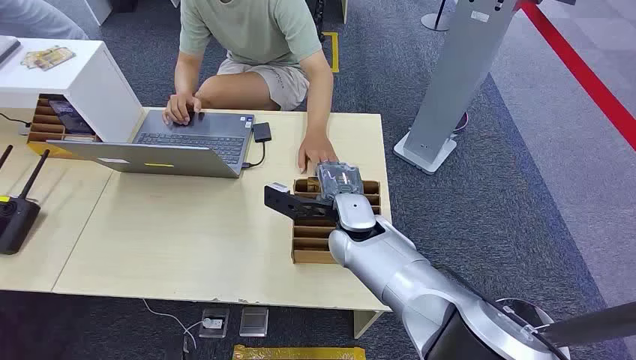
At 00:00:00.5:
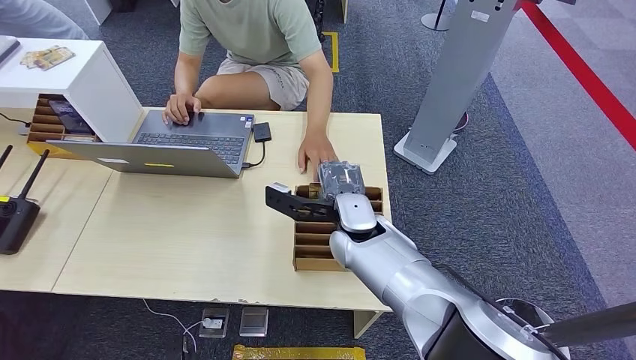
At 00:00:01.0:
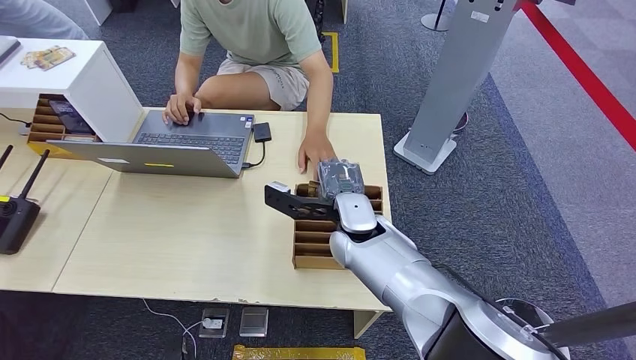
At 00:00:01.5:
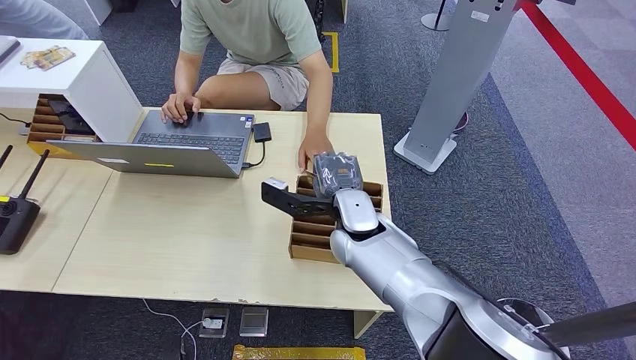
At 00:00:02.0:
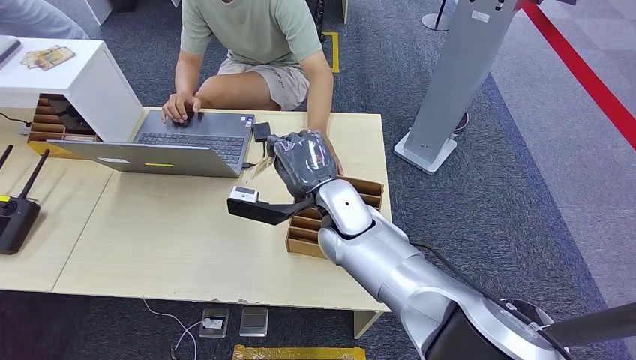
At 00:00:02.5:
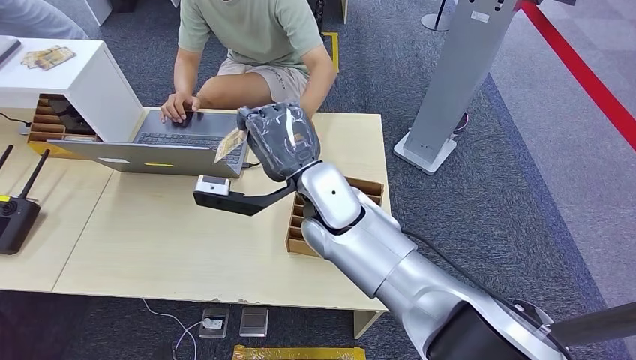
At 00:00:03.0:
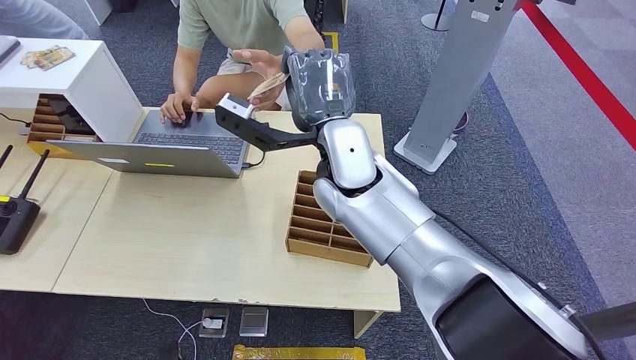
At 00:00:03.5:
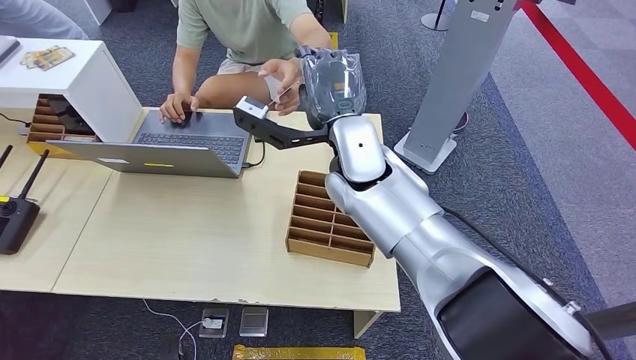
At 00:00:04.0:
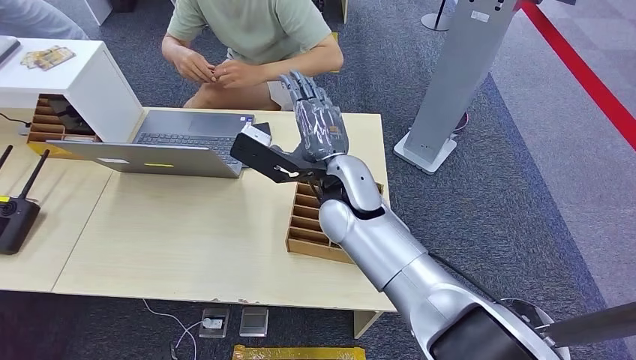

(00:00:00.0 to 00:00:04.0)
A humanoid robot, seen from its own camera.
Step, 00:00:00.0 - 00:00:02.0: Pick up the key card from the card box.
Step, 00:00:03.5 - 00:00:04.0: Hand the key card to the target.
00:00:02.0 - 00:00:04.0: The right hand travels upward by some 5 cm.

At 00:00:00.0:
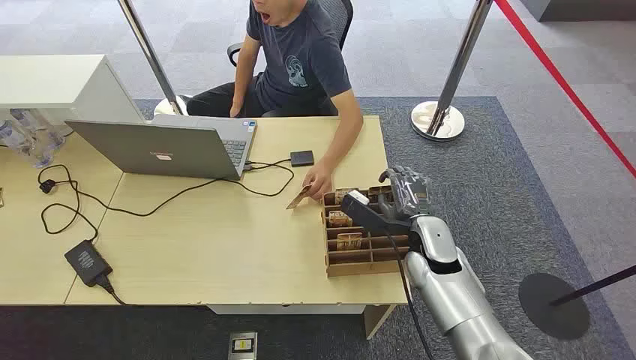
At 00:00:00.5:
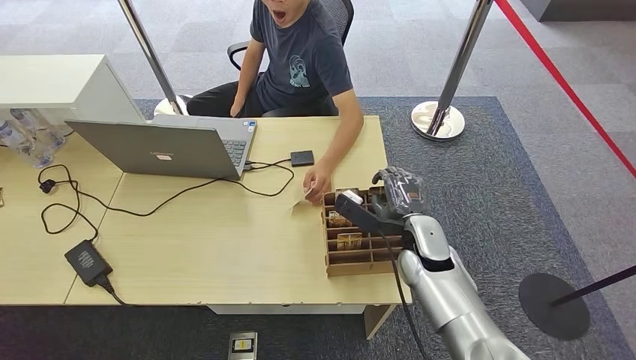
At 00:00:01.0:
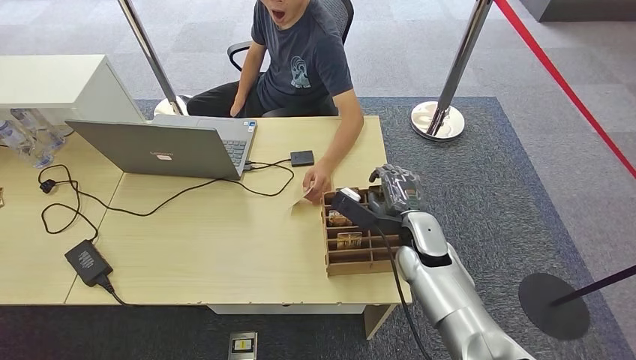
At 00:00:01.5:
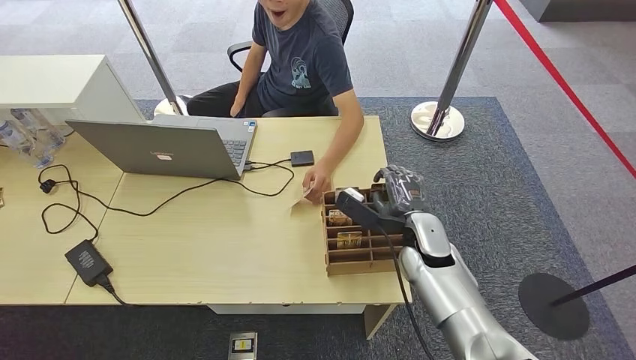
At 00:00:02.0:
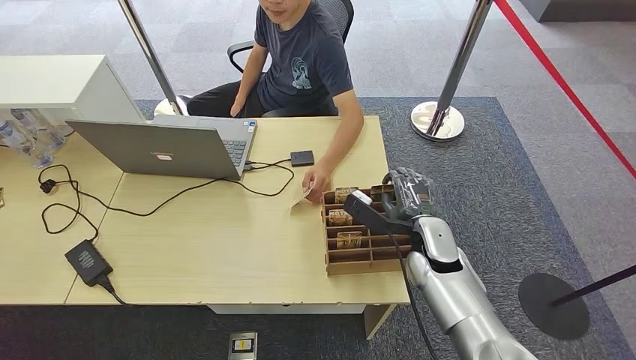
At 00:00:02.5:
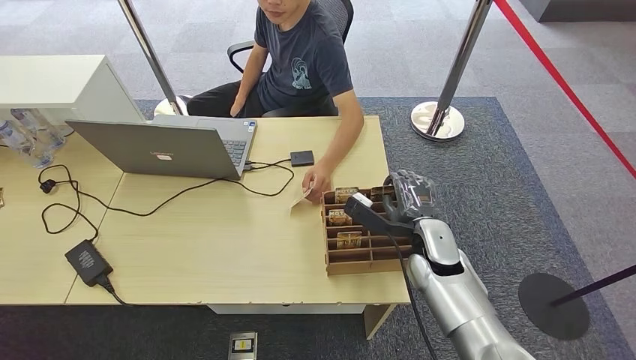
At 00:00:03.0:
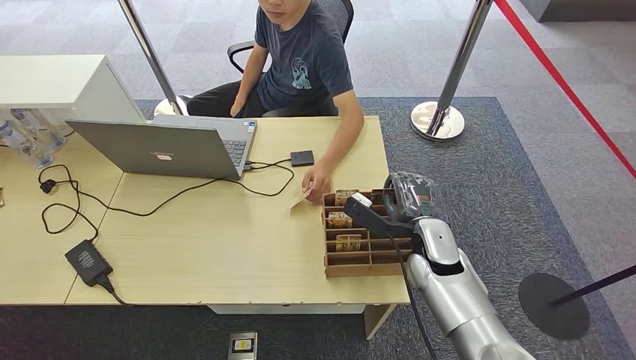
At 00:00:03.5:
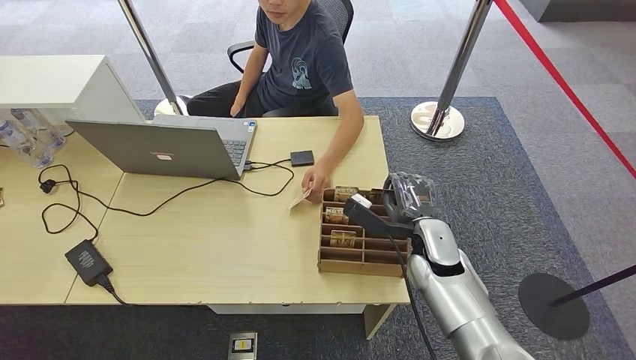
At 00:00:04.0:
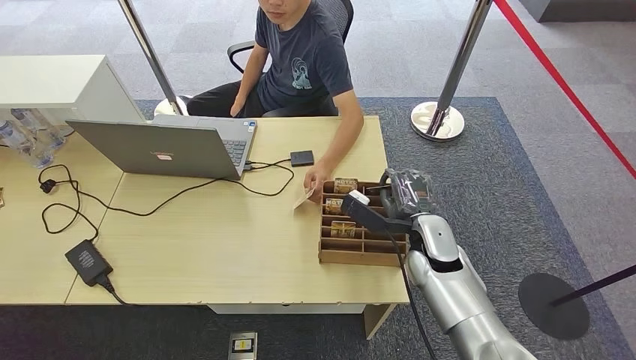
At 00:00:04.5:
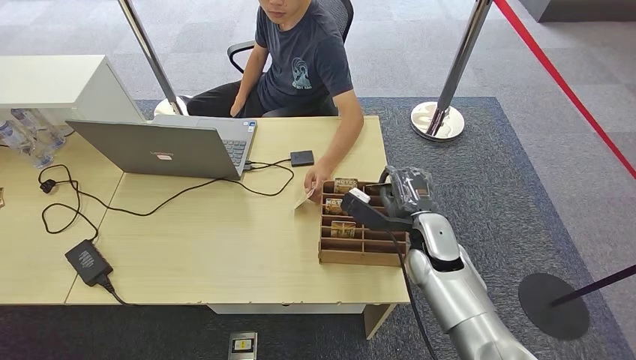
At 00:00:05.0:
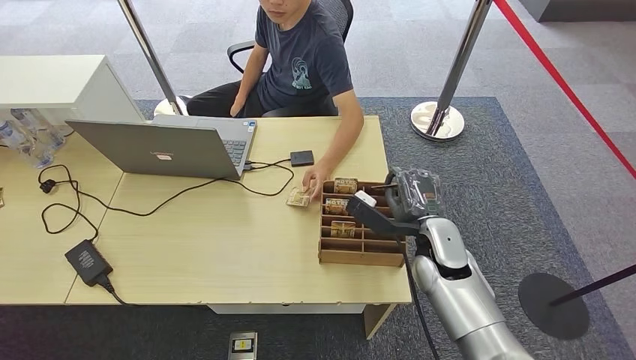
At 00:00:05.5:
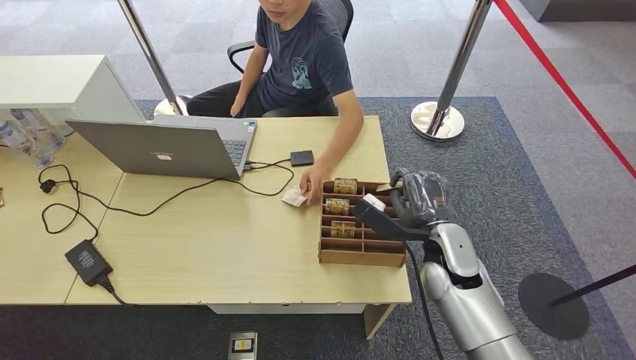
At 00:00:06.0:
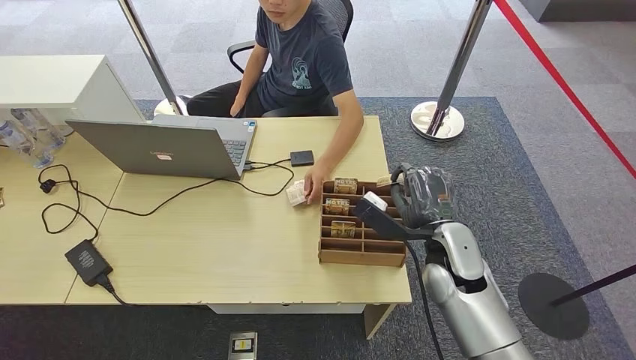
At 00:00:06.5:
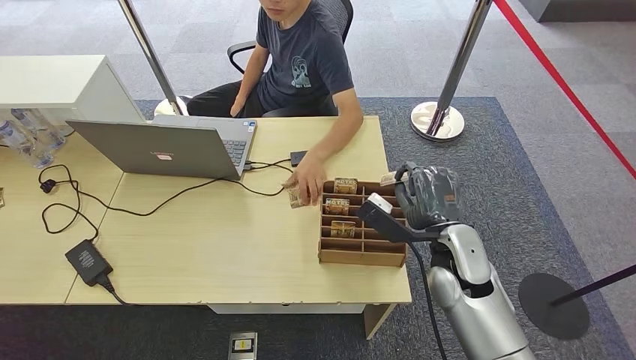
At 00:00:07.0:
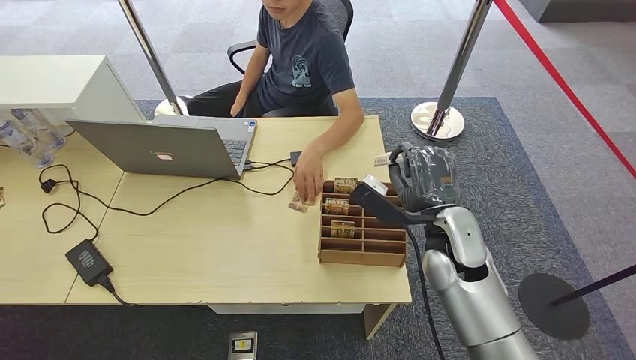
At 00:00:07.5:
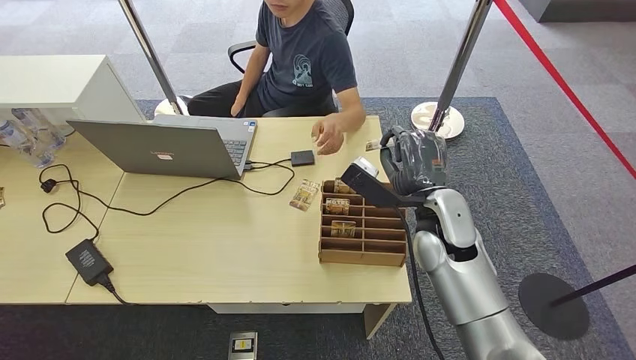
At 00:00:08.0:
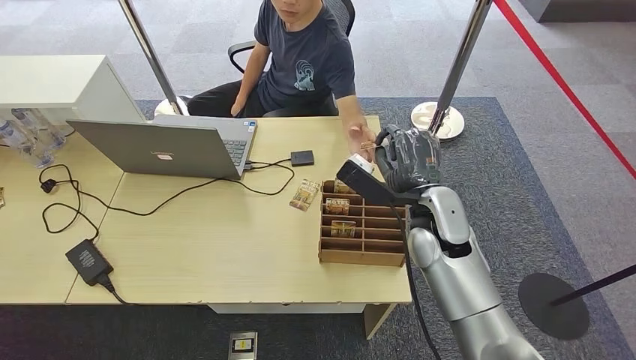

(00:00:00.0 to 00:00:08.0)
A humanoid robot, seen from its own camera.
Step, 00:00:00.0 - 00:00:06.0: Pick up the key card from the card box.
Step, 00:00:06.5 - 00:00:08.0: Hand the key card to the target.
00:00:02.0 - 00:00:04.0: The two hands keep their place.
00:00:04.0 - 00:00:06.0: The hands stay close to where they were, moving slightly.
00:00:06.0 - 00:00:08.0: The right hand shifts about 5 cm upward.
